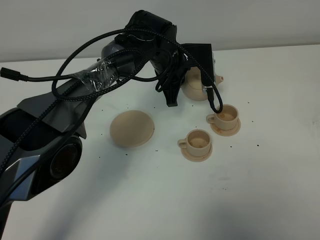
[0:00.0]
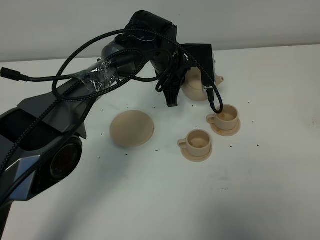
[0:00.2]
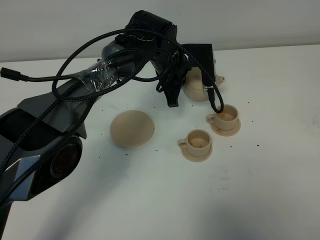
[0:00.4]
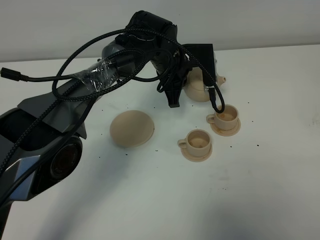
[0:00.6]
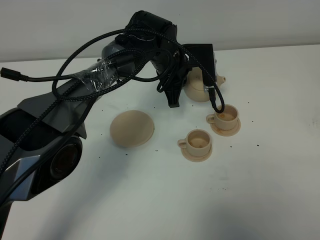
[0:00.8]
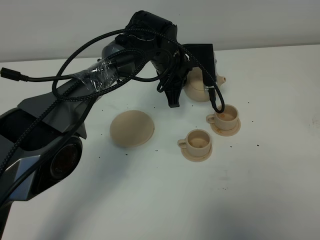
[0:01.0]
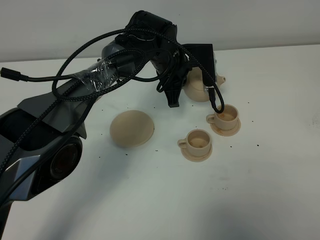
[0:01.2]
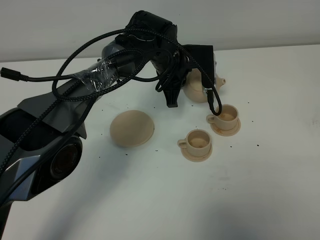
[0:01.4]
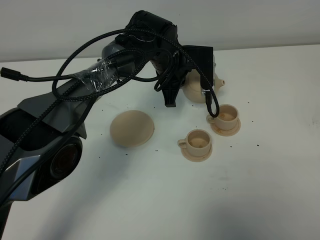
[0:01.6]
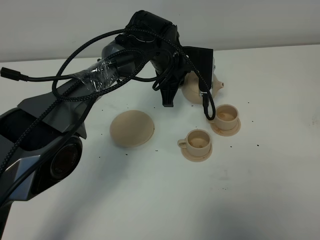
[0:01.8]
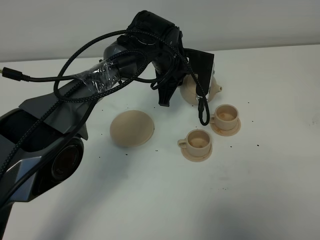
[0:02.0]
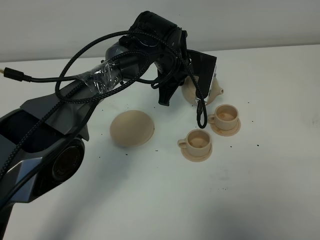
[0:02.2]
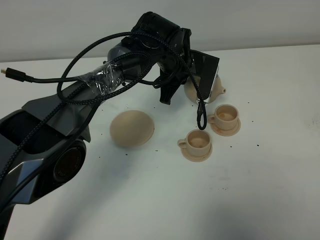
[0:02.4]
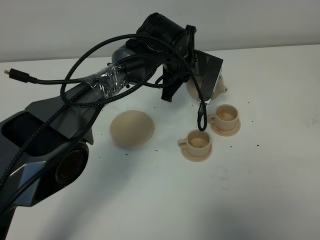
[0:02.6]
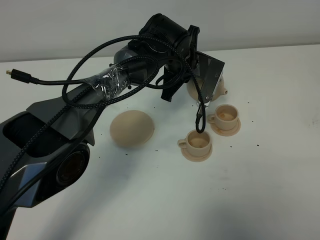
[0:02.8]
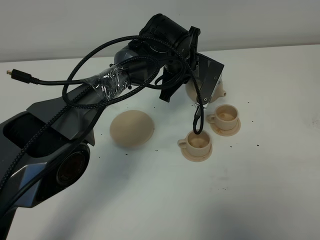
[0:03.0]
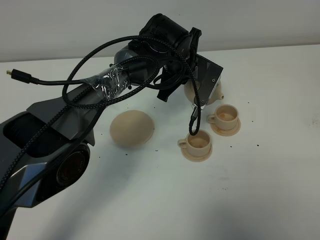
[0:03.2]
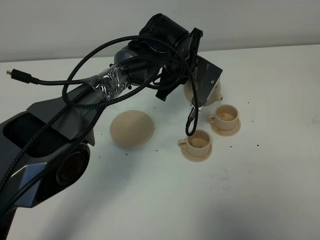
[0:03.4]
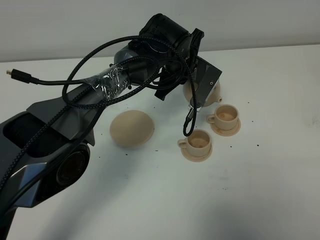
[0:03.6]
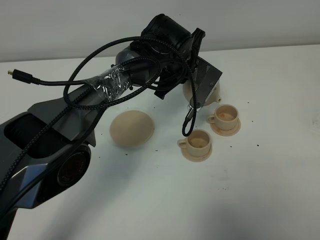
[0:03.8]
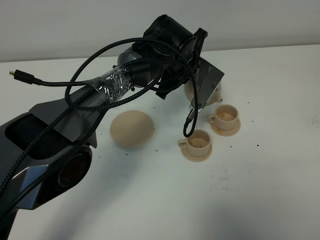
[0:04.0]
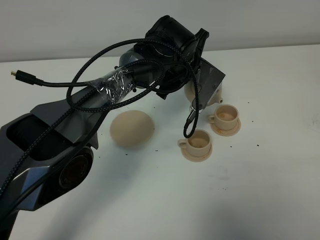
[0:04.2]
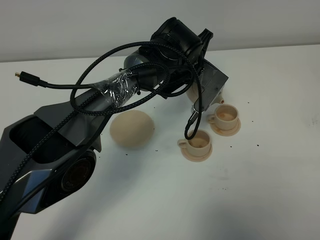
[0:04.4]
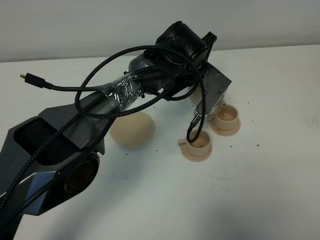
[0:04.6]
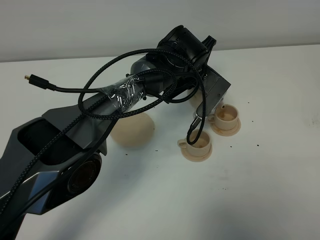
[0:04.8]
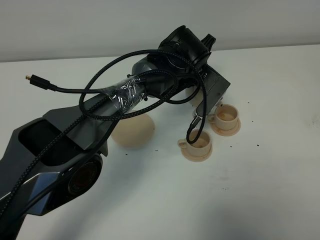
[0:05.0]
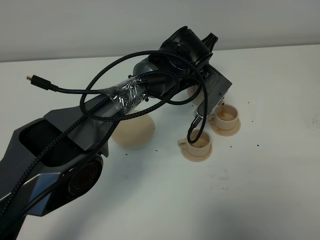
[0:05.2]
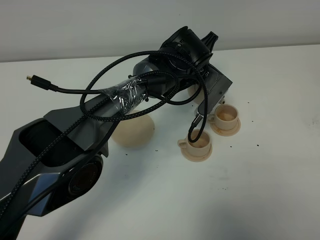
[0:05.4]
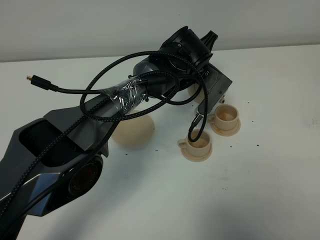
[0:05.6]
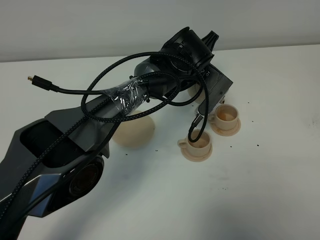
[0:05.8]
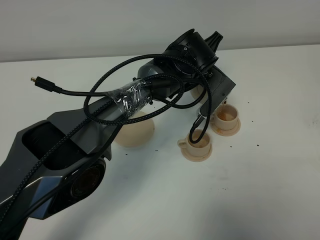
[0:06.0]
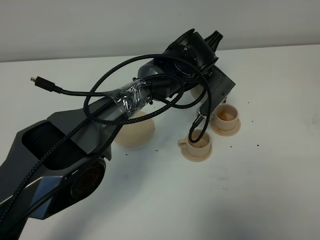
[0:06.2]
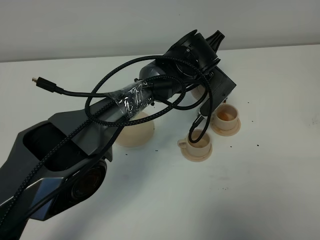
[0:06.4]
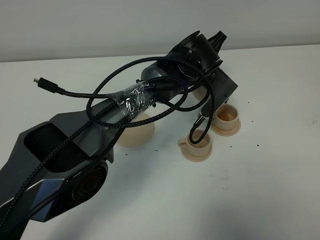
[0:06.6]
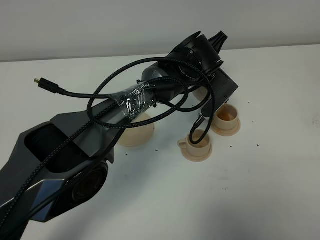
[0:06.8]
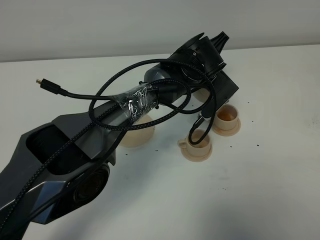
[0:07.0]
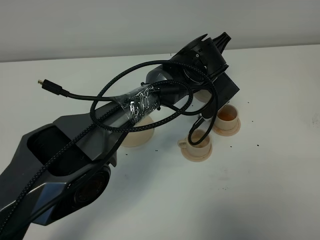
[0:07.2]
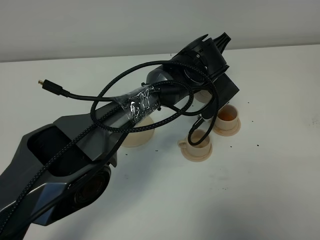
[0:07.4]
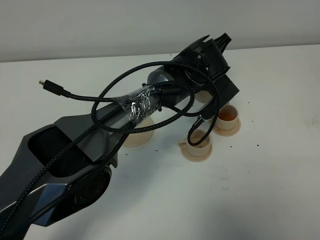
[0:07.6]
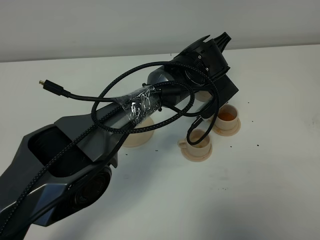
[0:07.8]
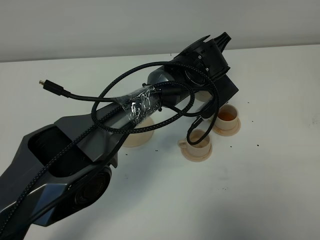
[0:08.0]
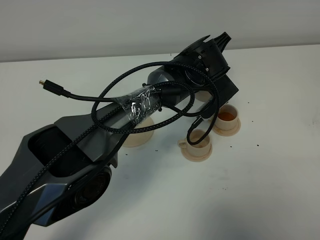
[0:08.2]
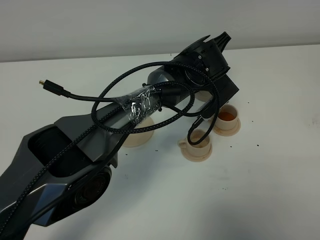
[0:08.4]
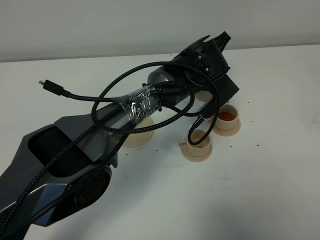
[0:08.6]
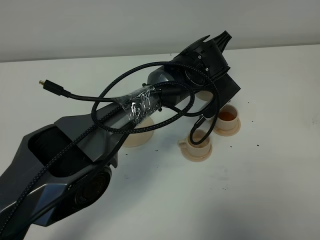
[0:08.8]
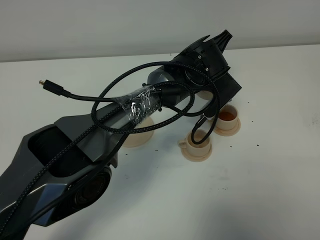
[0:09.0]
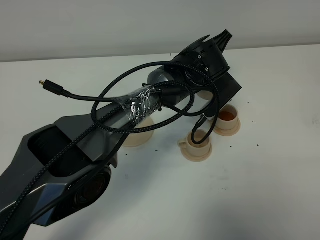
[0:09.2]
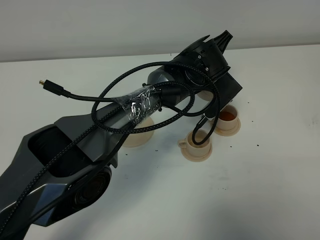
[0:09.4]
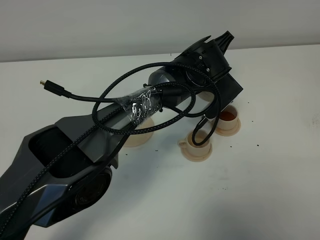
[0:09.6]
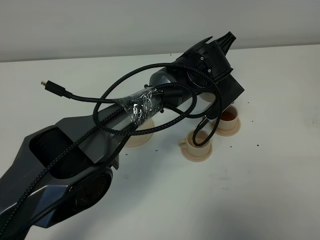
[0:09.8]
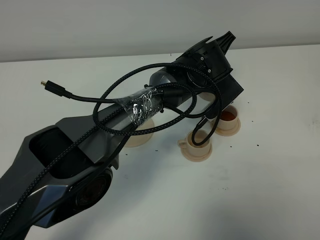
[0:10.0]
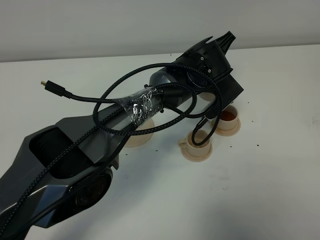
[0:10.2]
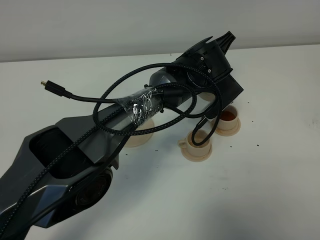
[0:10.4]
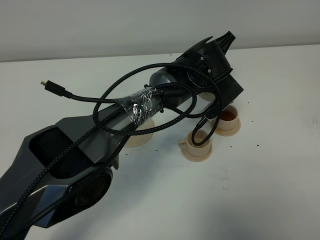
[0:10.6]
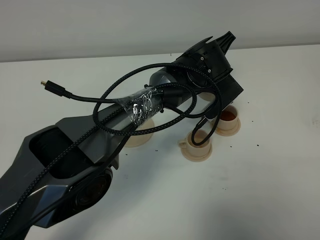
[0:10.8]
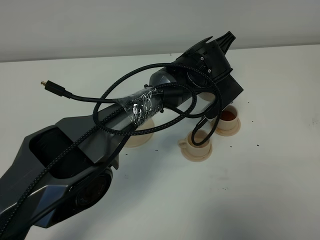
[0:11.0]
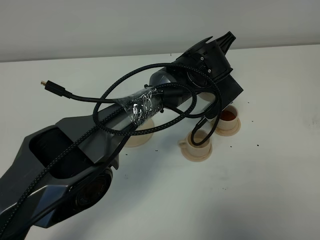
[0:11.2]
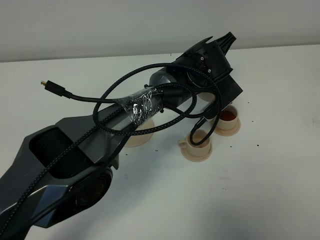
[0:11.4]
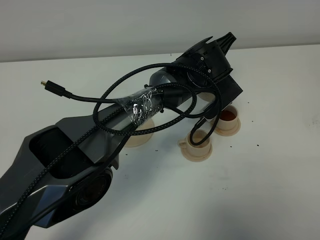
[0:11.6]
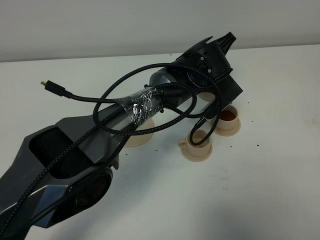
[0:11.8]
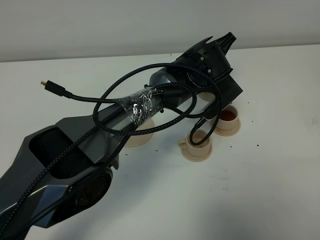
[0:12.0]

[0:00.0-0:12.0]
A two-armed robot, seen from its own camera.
Task of the whole recording: grasp the brown teapot and pour the tea into the two brown teacups one by one, put the brown teapot back in its original place.
0:00.0 to 0:01.6: Both grippers stay about where they are.
0:03.0 to 0:04.4: The grippers move only a little.
0:04.4 to 0:07.6: The grippers move only a little.
0:07.6 to 0:12.0: The two grippers keep their place.

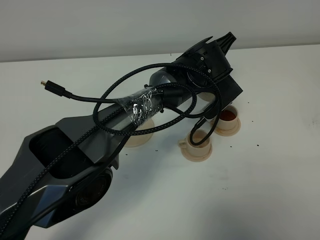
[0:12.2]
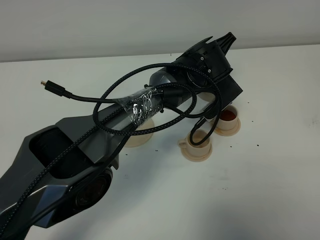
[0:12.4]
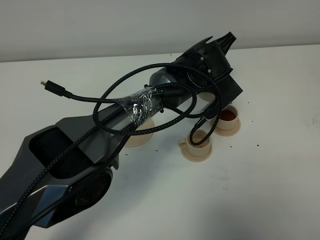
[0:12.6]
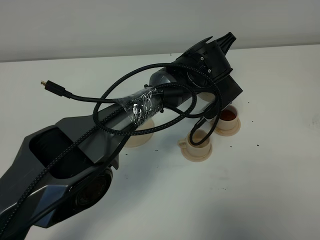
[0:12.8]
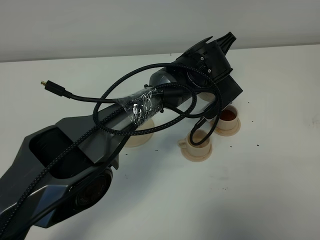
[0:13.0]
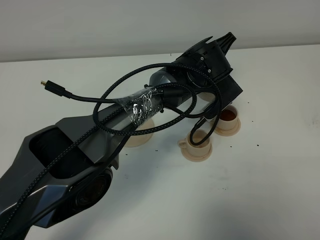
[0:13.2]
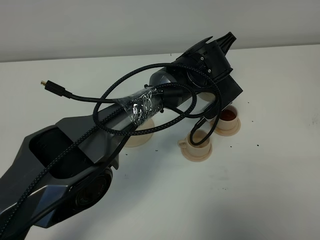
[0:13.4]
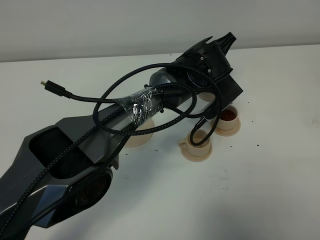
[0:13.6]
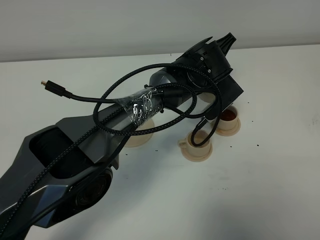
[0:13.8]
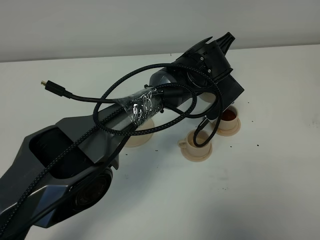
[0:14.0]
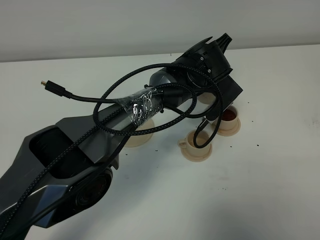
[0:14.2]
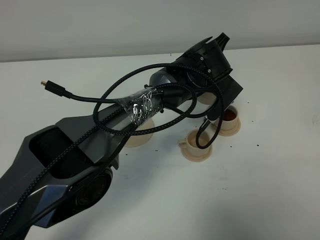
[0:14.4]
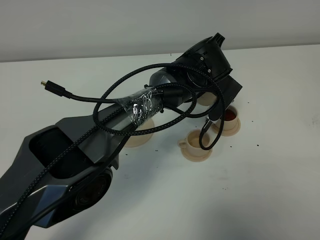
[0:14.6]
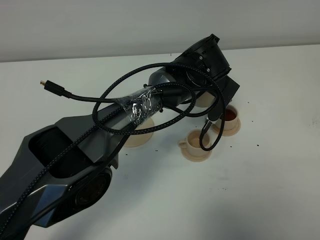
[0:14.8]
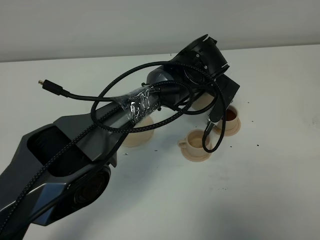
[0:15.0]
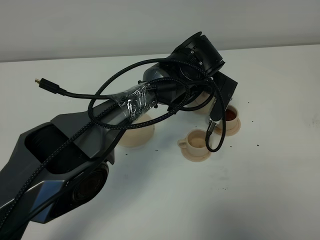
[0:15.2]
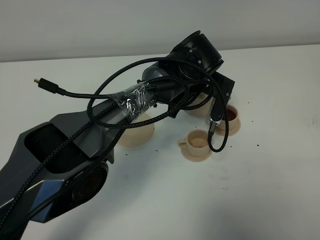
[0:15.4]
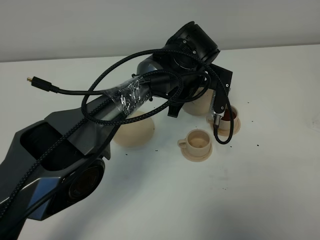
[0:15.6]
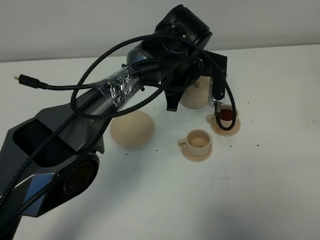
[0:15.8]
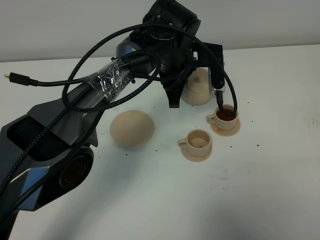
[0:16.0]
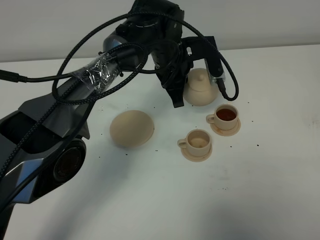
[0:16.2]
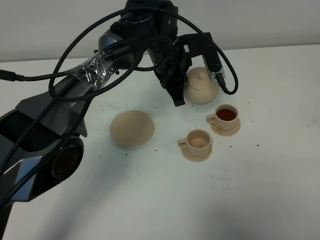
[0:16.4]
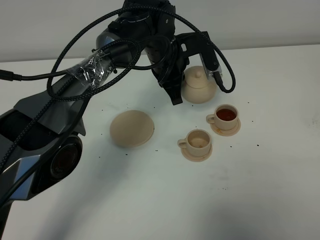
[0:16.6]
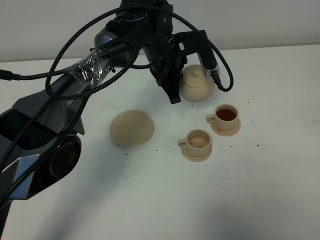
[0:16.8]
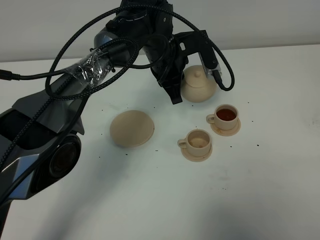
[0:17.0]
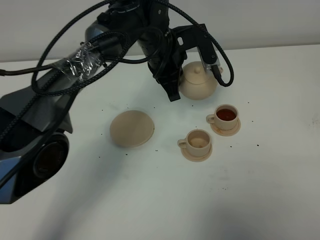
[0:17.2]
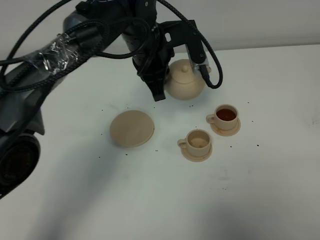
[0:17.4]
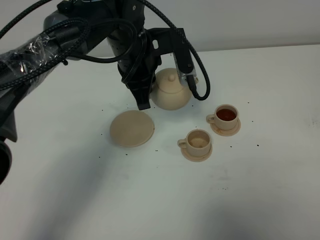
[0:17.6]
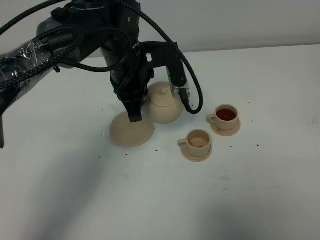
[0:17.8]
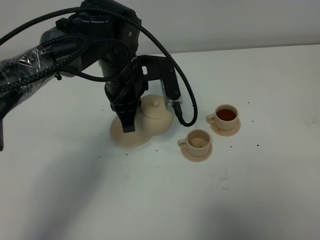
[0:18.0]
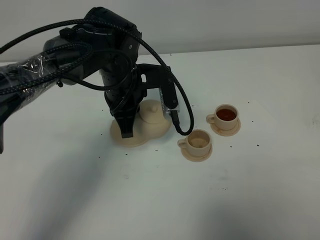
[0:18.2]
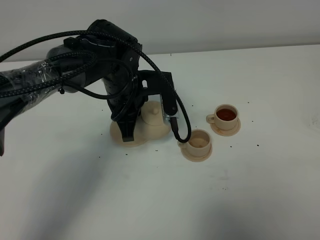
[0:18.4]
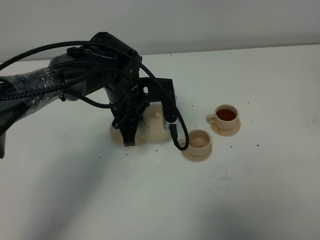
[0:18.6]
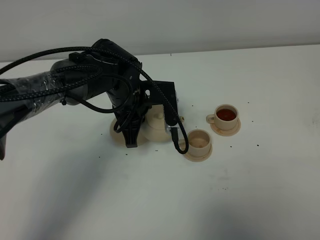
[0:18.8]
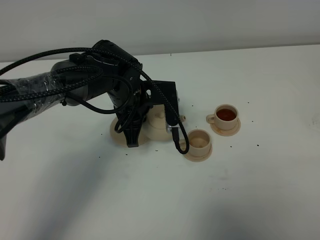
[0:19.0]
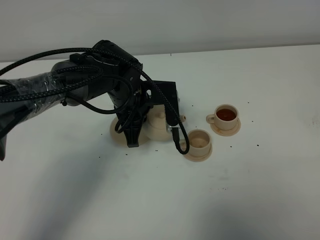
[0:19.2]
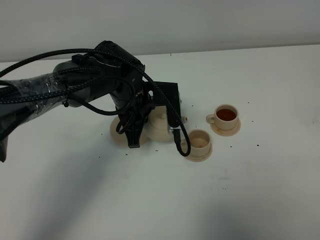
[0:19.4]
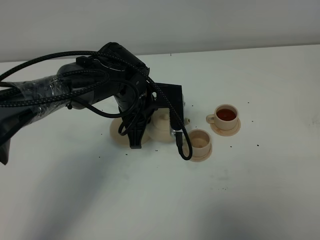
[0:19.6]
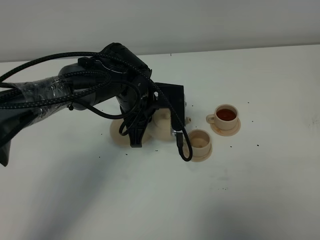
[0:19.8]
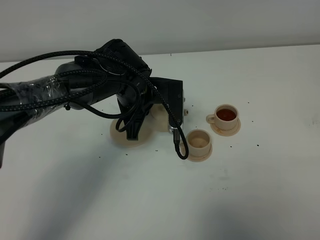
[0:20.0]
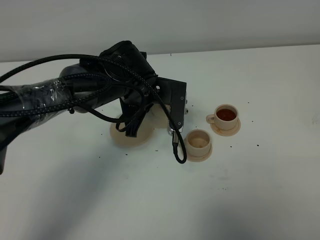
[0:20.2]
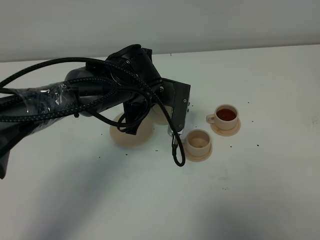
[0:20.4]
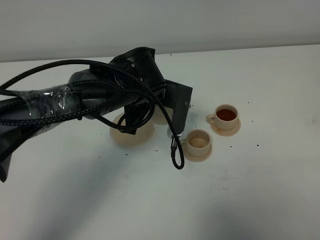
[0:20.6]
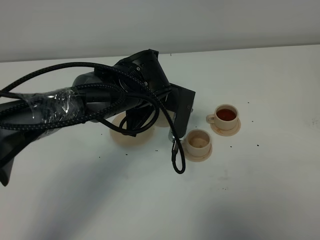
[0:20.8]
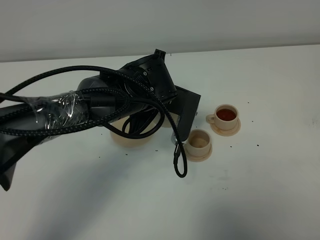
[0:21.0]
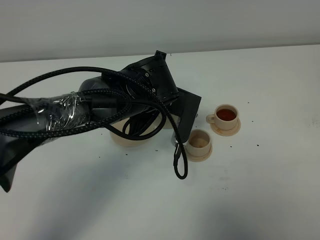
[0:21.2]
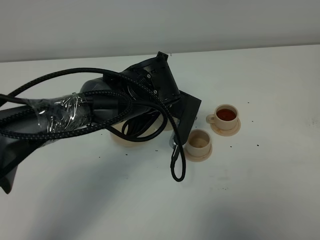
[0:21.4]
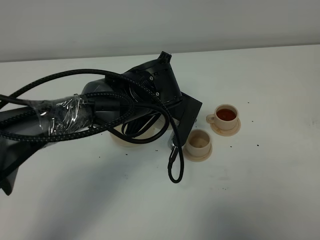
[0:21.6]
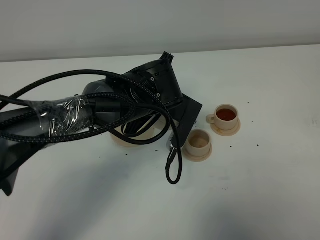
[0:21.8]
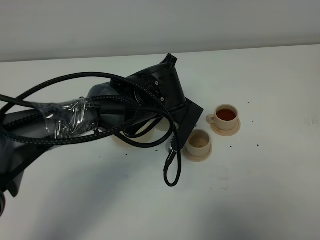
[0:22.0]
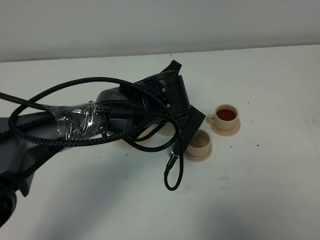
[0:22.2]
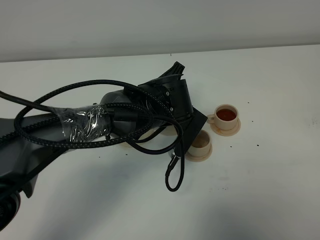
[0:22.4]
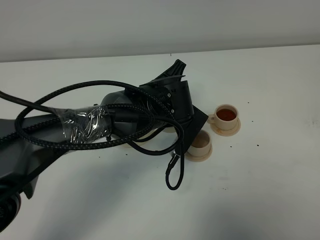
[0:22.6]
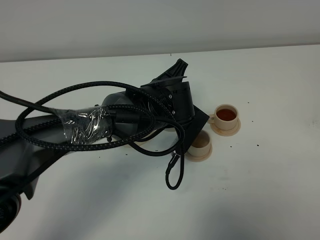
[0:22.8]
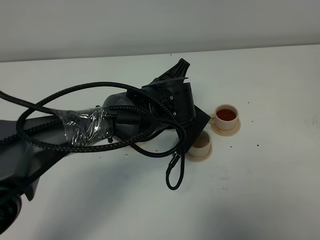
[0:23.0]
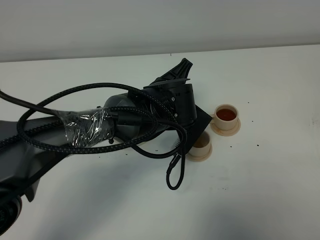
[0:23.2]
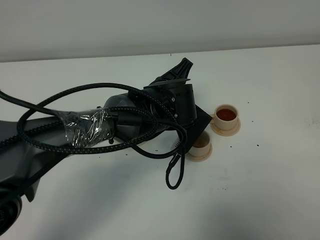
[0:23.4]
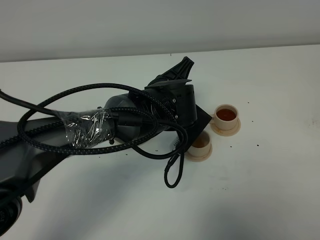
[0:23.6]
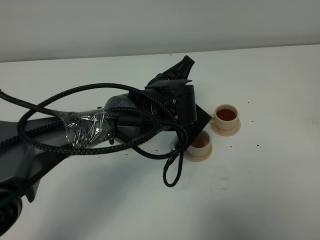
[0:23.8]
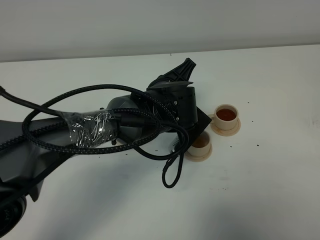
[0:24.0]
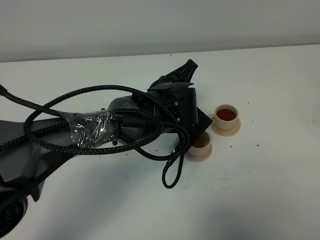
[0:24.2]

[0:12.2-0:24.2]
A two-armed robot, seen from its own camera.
Task of the whole recording: grasp the brown teapot and pour the tea into the two brown teacups one by one, put the brown teapot back in its original place.
Step, 0:12.2 to 0:15.0: Pour tea into the teacup with the left gripper.
0:12.2 to 0:13.8: Neither gripper changes place.
0:15.2 to 0:16.6: The left gripper shifts some 5 cm to the left.
0:16.6 to 0:18.2: The left gripper moves backward and to the left, approximately 10 cm.
0:18.2 to 0:19.8: There are only small adjustments of the grippers.
0:21.2 to 0:22.6: The grippers move only a little.
0:22.6 to 0:24.2: The grippers make only small movements.
